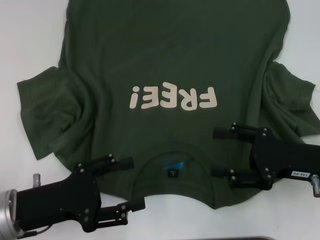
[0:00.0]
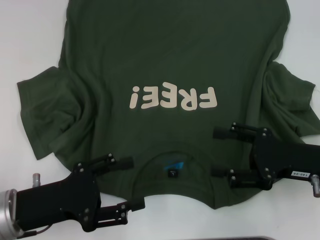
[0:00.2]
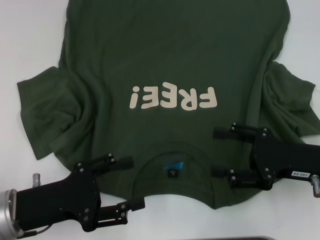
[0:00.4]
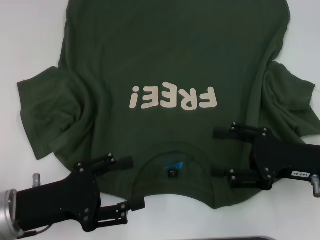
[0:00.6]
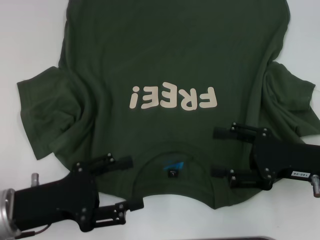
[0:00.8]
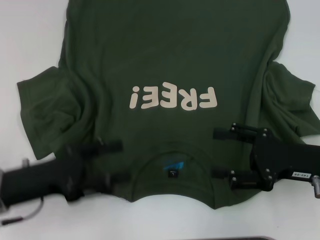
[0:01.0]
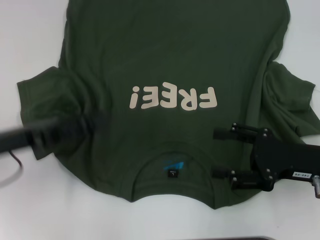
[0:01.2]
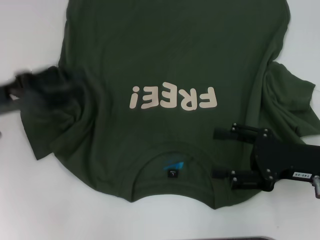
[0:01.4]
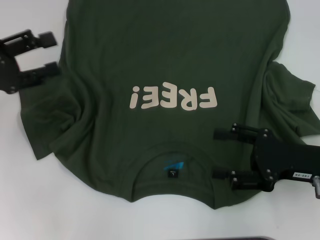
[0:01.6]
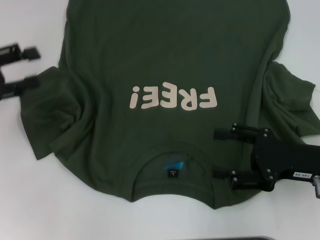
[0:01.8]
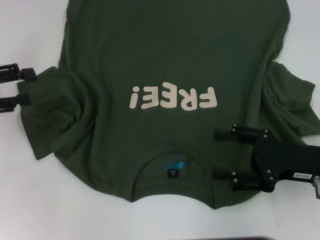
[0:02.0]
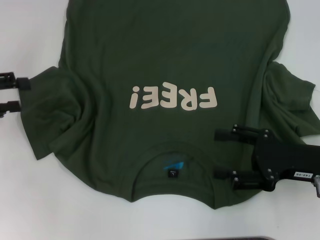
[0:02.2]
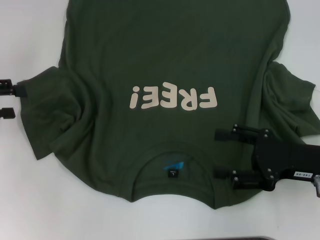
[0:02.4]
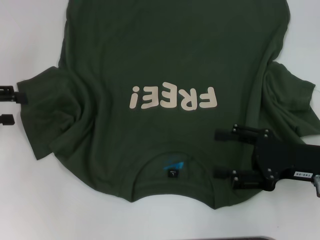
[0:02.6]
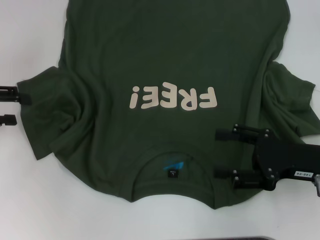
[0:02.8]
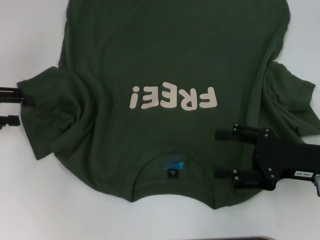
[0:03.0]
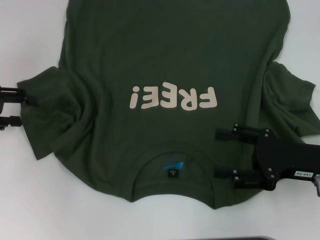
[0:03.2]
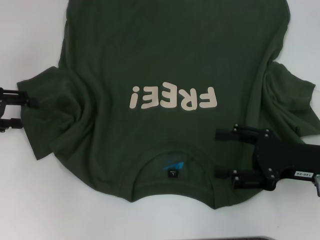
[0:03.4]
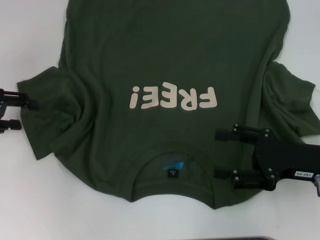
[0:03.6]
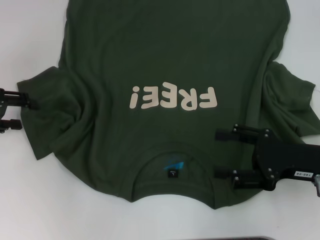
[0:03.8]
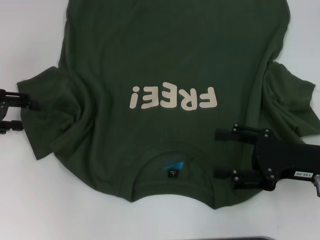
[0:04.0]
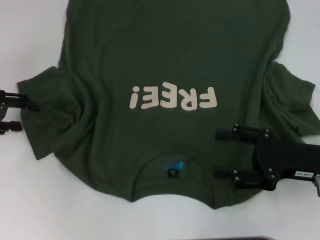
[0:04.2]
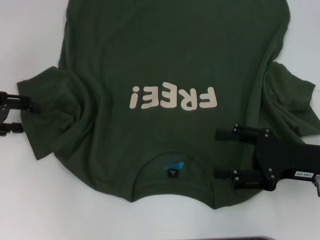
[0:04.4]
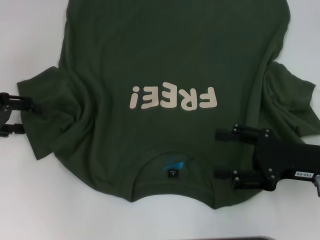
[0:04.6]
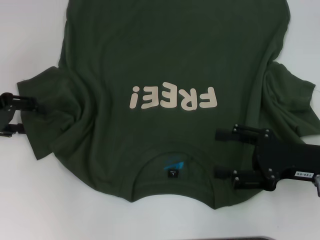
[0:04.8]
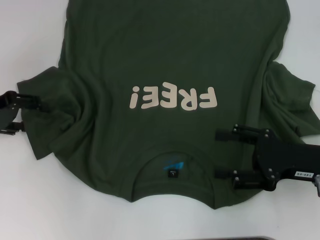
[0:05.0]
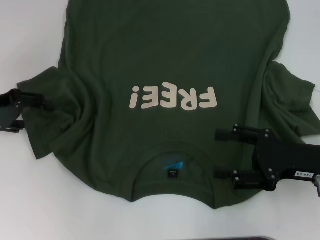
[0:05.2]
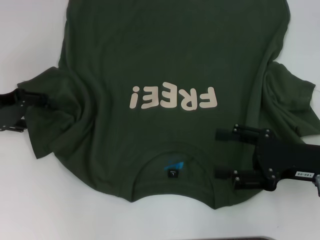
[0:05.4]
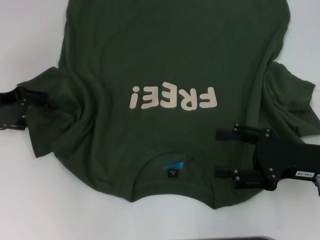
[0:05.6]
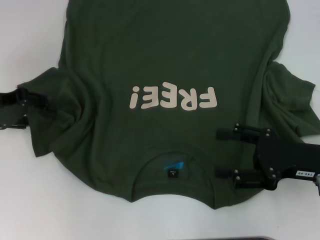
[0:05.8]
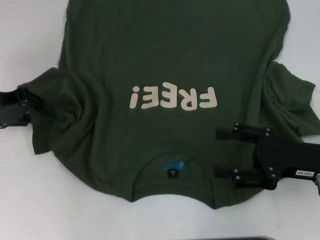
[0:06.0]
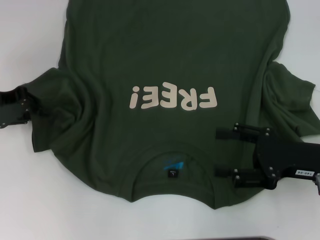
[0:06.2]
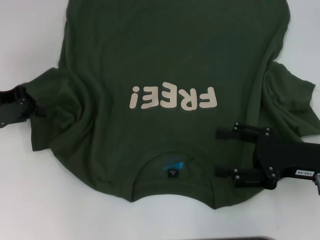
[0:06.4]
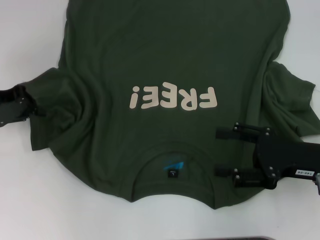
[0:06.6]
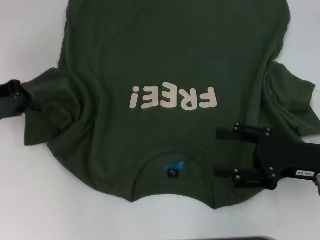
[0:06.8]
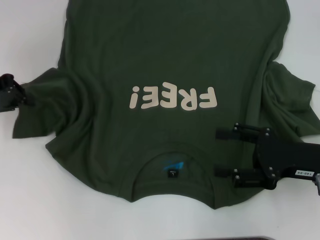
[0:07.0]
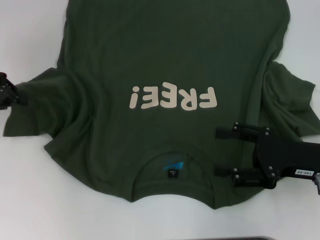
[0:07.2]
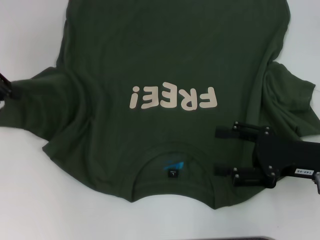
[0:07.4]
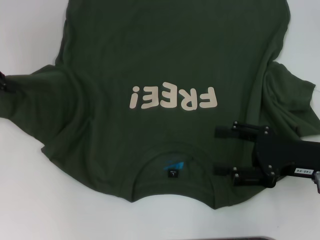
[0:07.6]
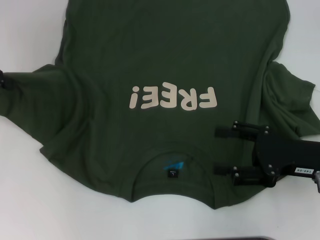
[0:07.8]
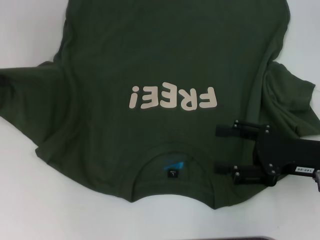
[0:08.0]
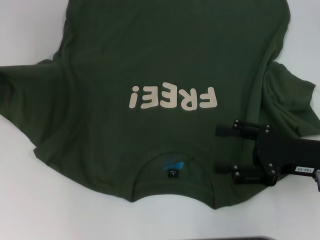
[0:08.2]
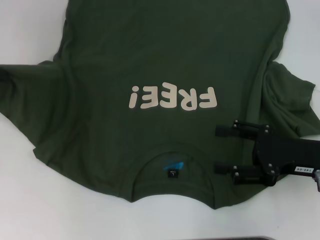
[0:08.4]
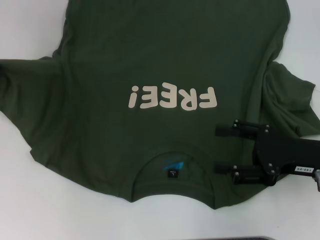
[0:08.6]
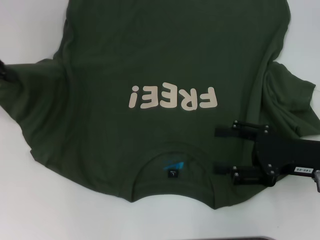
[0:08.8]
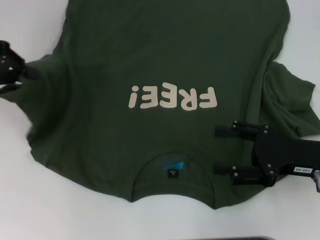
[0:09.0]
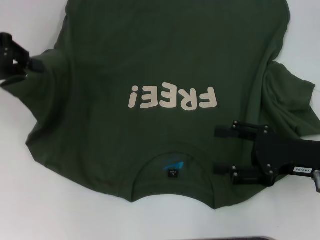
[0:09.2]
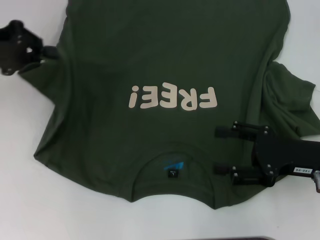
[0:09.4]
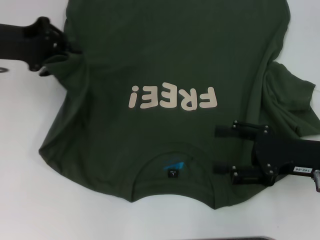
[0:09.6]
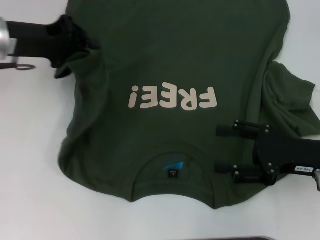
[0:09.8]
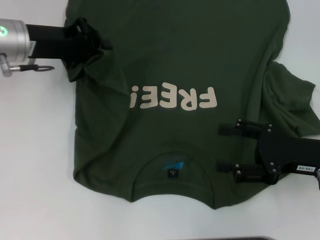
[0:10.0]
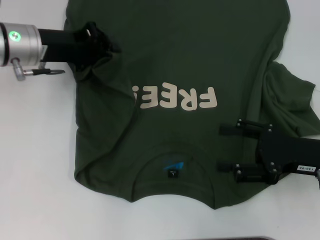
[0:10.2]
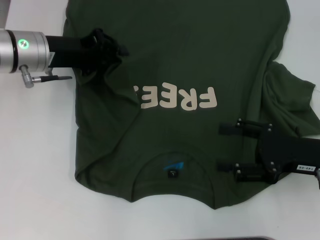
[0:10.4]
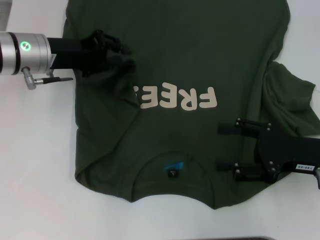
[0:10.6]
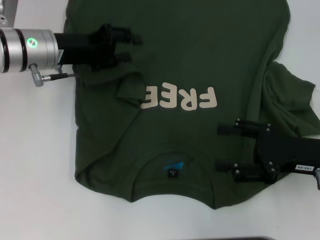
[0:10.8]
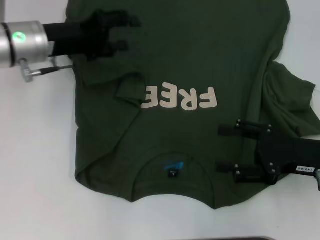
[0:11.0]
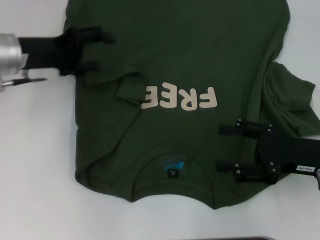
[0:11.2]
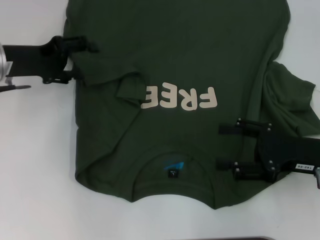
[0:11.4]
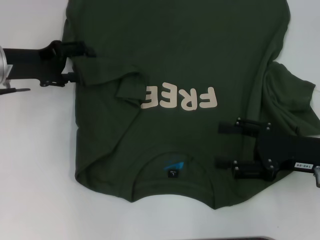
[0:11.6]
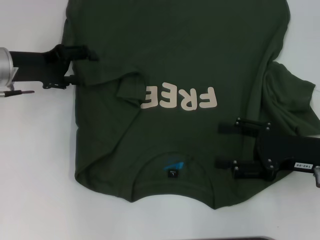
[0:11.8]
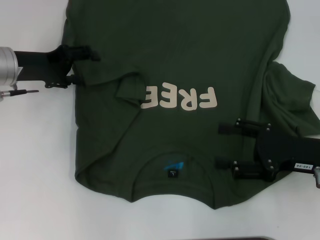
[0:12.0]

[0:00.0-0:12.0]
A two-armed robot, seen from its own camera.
0:00.0 to 0:01.6: The left gripper heads forward, to the left and upward, covering approximately 15 cm.
0:03.0 to 0:06.0: The grippers make only small movements.
0:06.0 to 0:07.6: The left gripper ends up roughly 5 cm from where it was, and closes up.
0:07.6 to 0:09.0: The grippers stay close to where they were, moving slightly.
0:09.0 to 0:10.4: The left gripper travels to the right and downward by approximately 15 cm.
0:10.4 to 0:12.0: The left gripper opens its fingers.

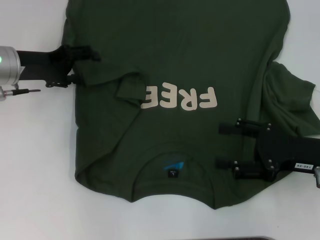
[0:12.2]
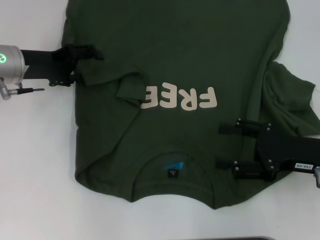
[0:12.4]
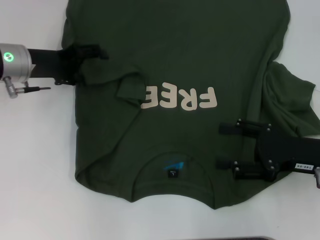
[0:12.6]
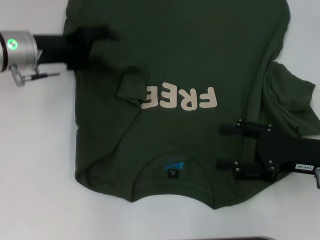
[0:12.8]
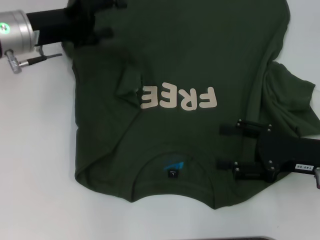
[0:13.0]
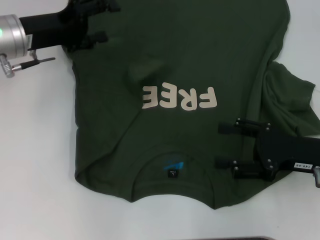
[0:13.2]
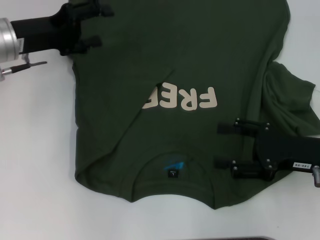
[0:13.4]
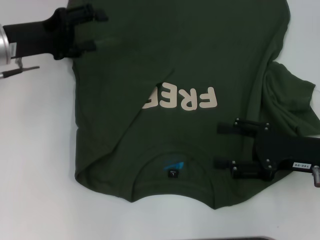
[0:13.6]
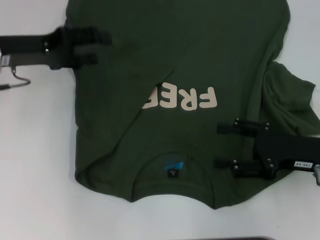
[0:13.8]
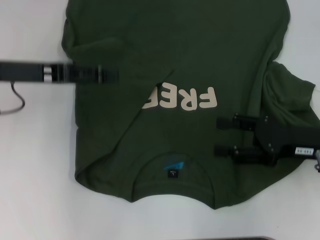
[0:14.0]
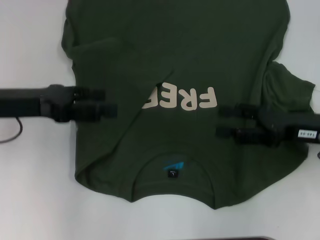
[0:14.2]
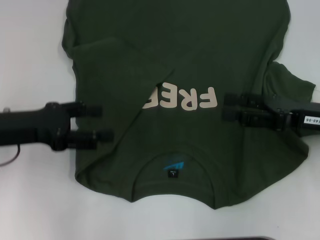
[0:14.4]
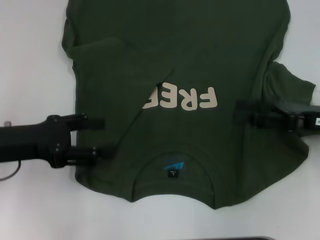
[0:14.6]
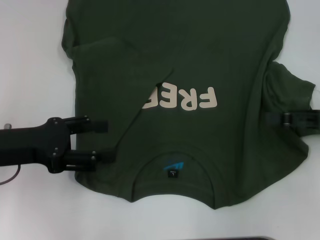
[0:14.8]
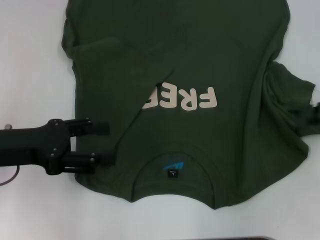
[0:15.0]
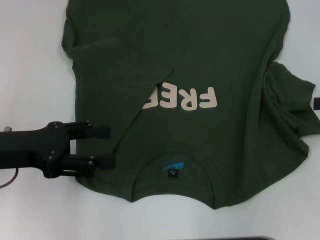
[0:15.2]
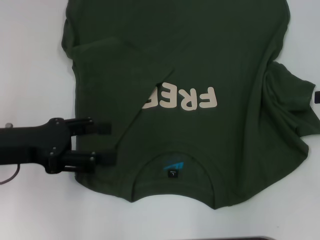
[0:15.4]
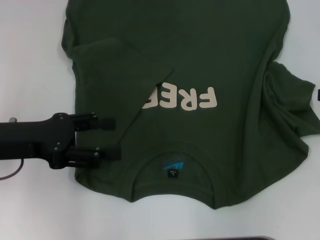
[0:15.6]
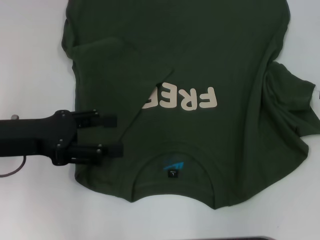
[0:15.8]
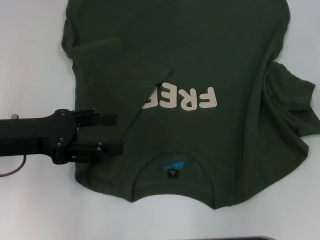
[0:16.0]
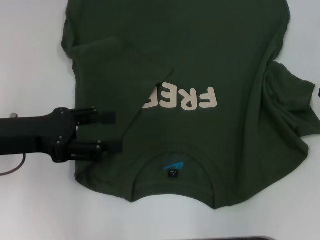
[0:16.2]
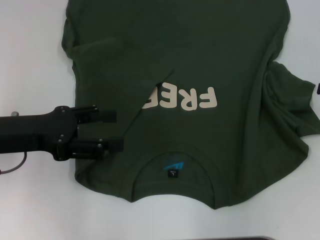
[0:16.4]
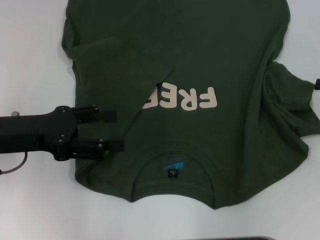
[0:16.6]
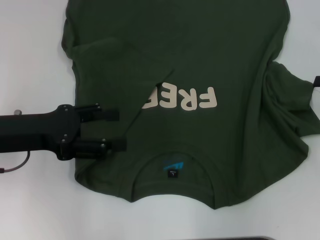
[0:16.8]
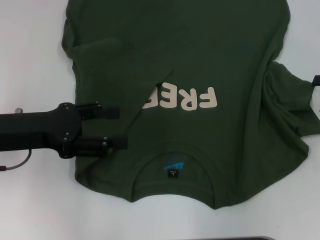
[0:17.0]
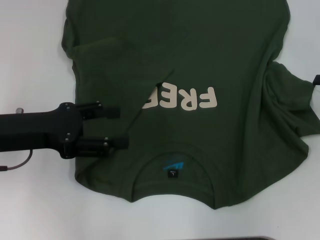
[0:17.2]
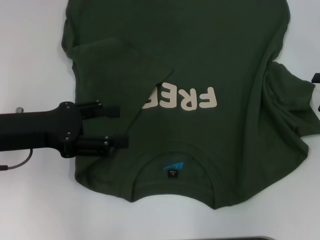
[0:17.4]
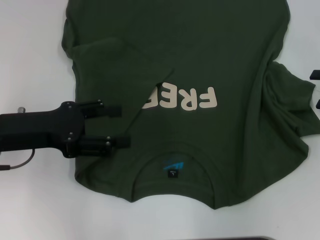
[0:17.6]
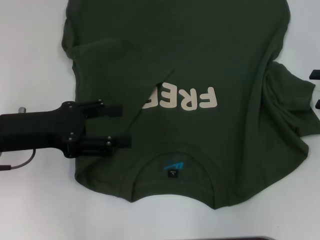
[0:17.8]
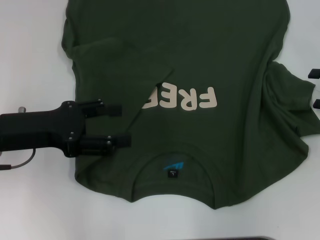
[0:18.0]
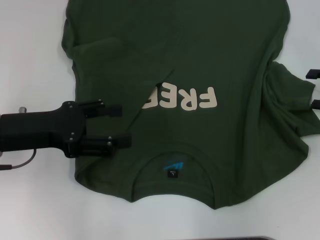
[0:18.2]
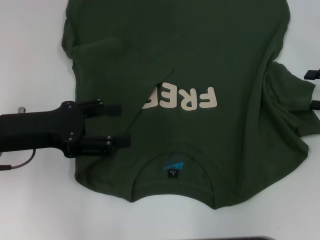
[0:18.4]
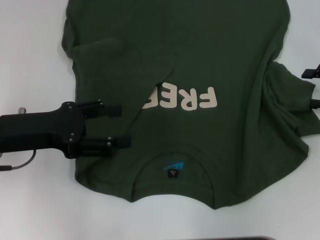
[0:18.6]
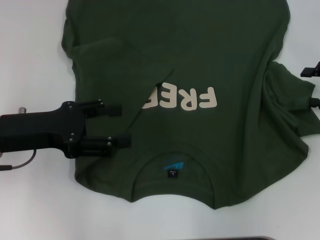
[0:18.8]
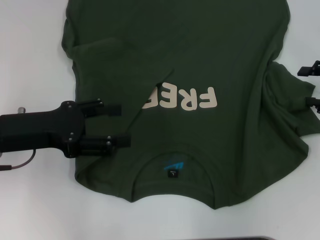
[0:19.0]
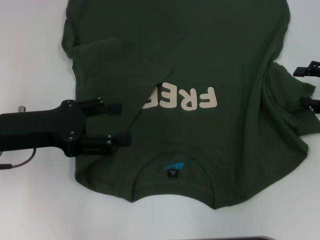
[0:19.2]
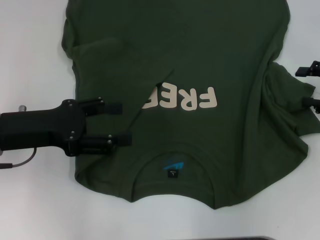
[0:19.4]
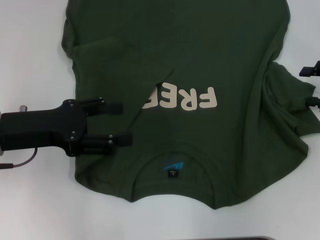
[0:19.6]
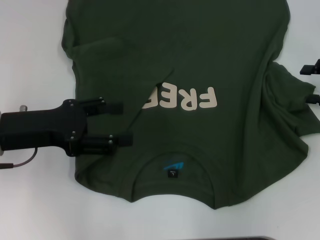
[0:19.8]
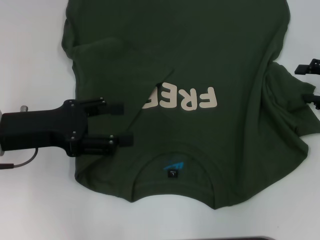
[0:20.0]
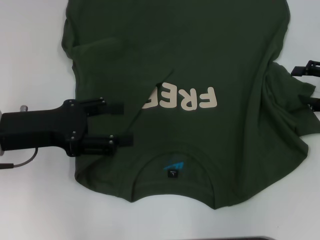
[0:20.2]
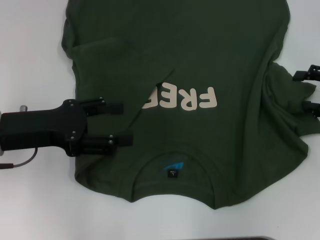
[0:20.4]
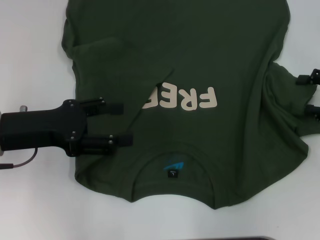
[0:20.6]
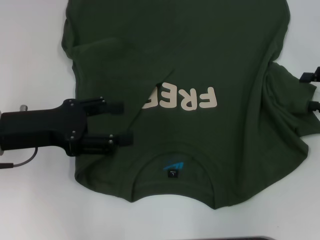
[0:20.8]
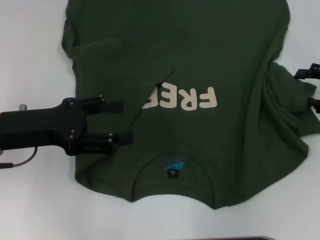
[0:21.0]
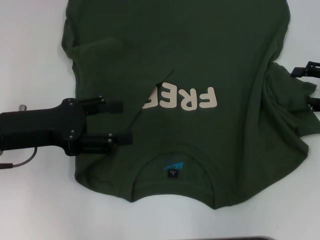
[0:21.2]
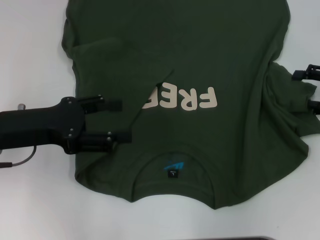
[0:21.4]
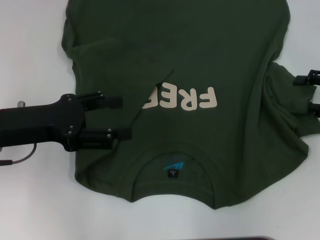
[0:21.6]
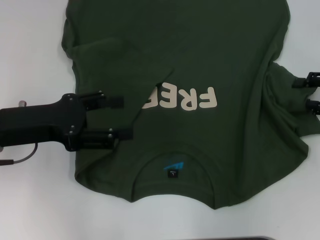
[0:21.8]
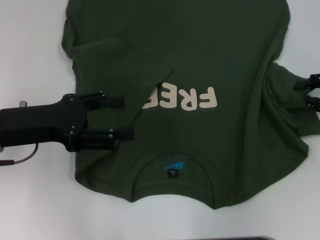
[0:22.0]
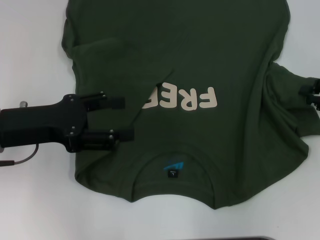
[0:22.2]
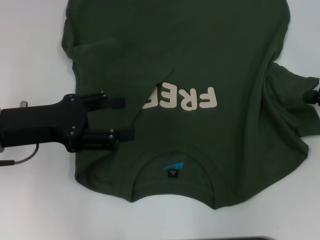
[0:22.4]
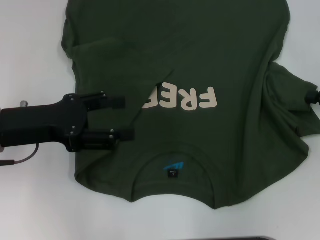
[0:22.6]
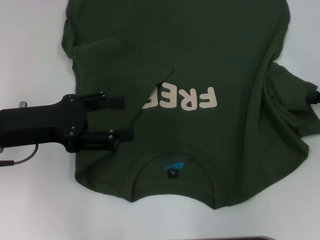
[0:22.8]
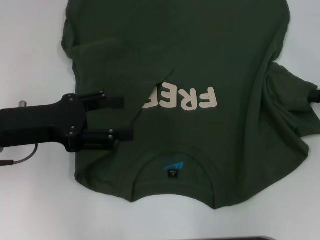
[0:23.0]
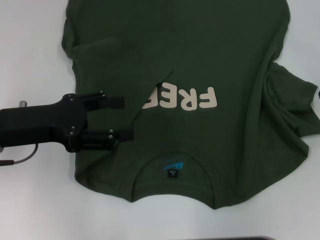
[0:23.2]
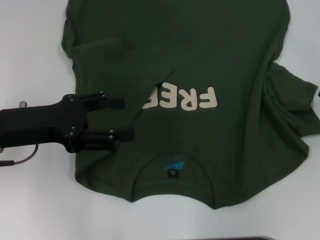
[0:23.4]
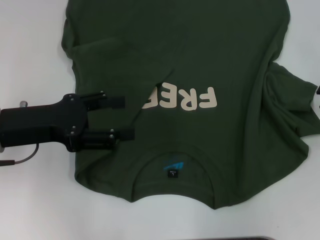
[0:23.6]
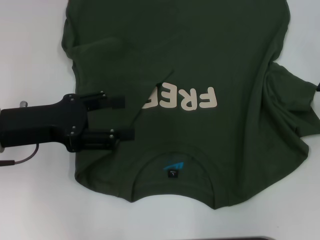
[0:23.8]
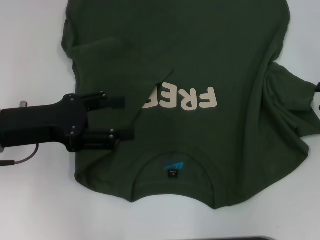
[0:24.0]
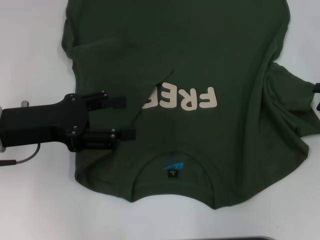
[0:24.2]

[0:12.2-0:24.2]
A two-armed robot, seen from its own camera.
0:13.8 to 0:15.2: The right gripper goes approximately 15 cm to the right and upward; the left gripper moves backward, about 10 cm.
0:16.6 to 0:19.8: The grippers move only a little.
0:19.8 to 0:21.2: Both grippers stay about where they are.
0:21.2 to 0:22.6: The right gripper closes.
